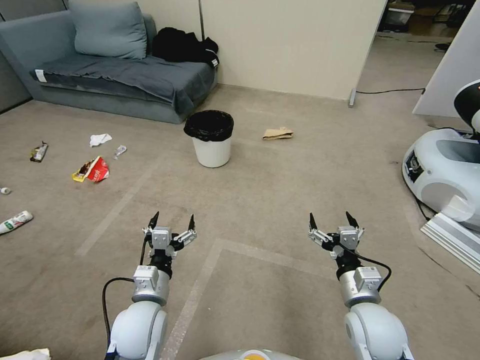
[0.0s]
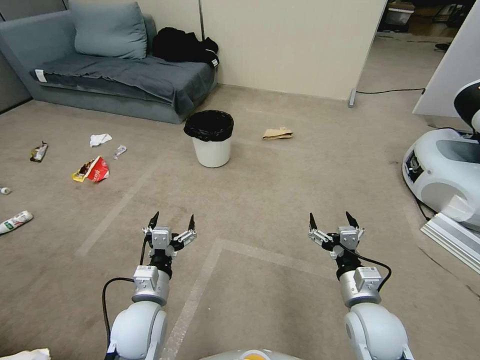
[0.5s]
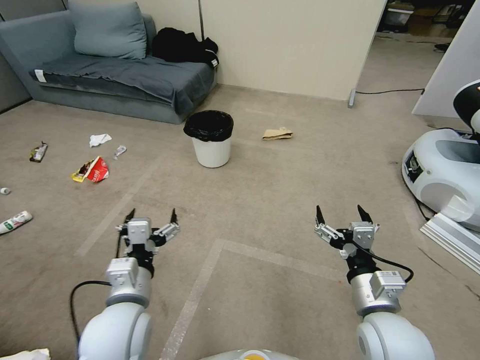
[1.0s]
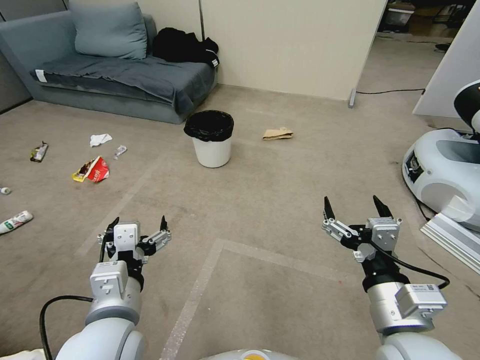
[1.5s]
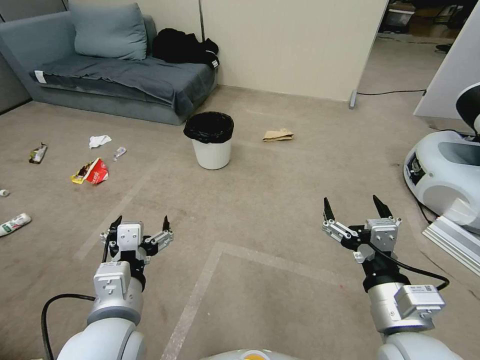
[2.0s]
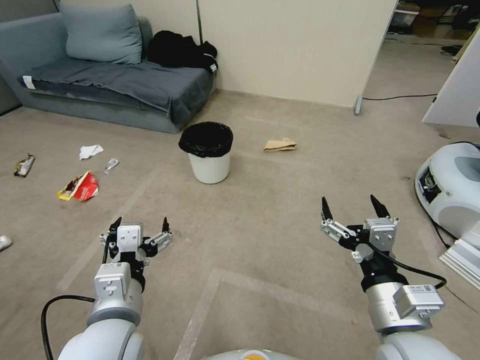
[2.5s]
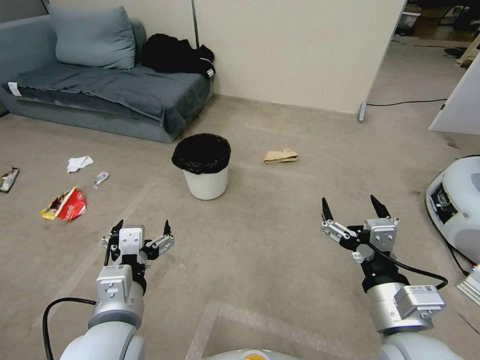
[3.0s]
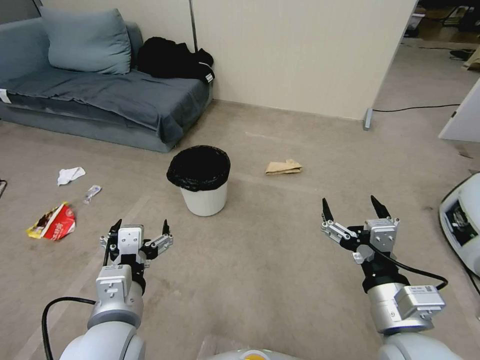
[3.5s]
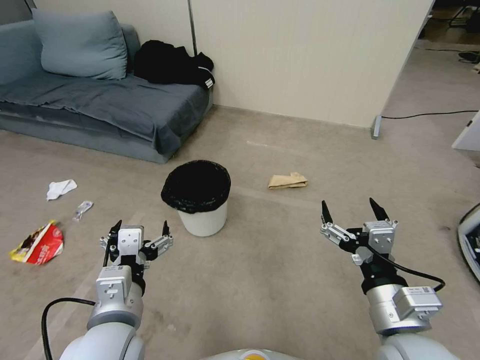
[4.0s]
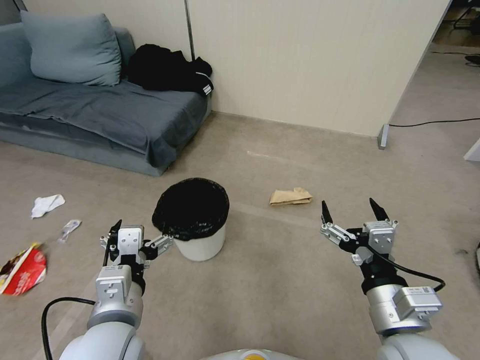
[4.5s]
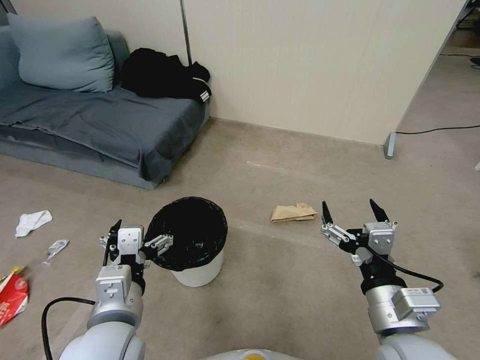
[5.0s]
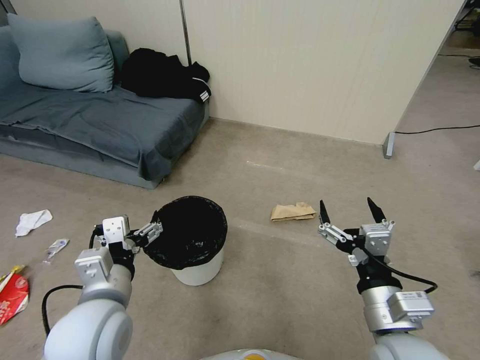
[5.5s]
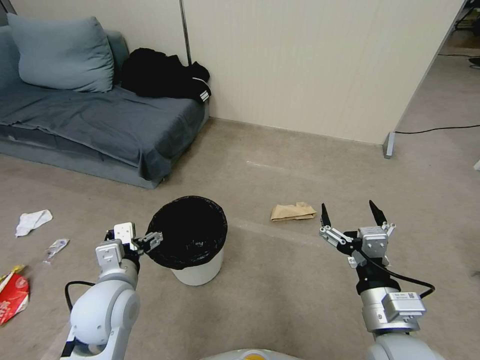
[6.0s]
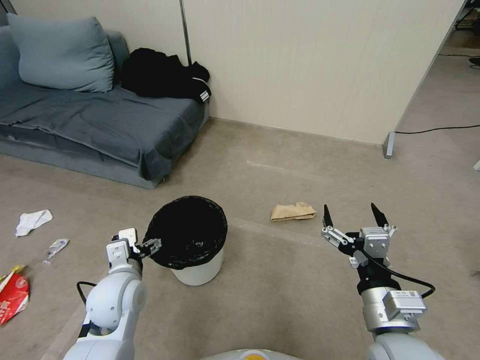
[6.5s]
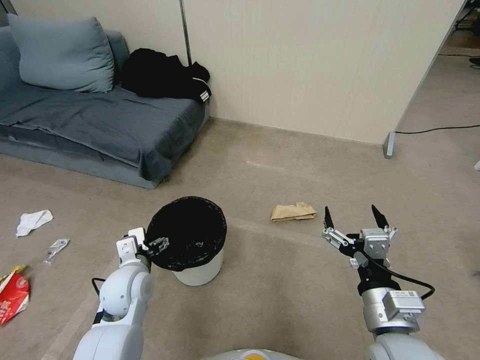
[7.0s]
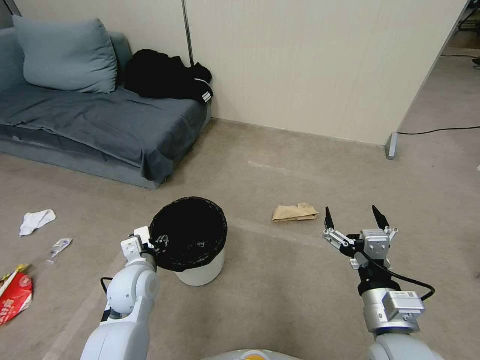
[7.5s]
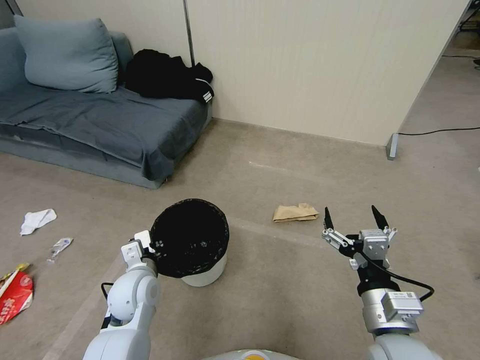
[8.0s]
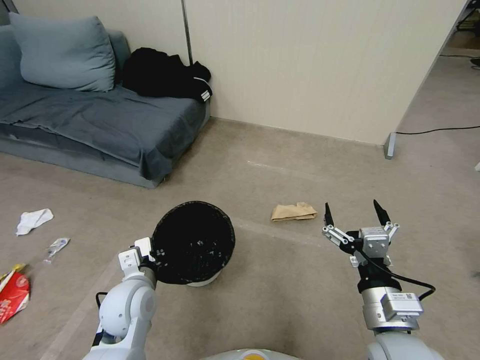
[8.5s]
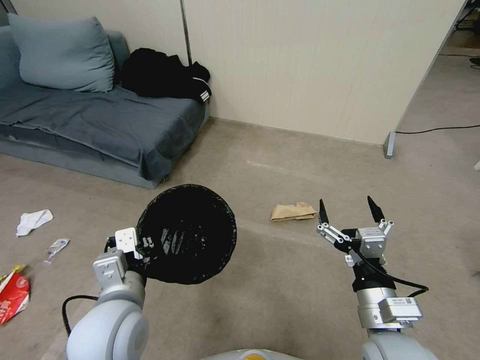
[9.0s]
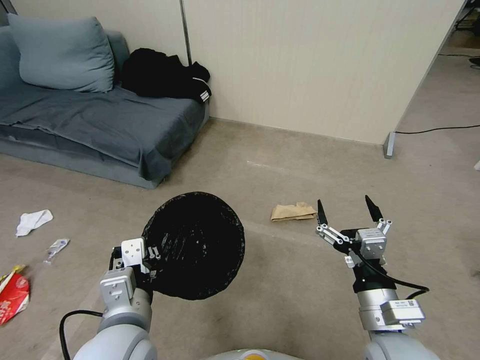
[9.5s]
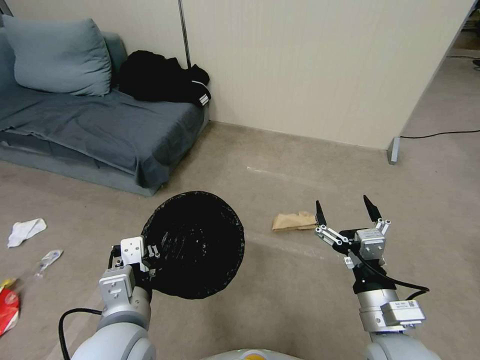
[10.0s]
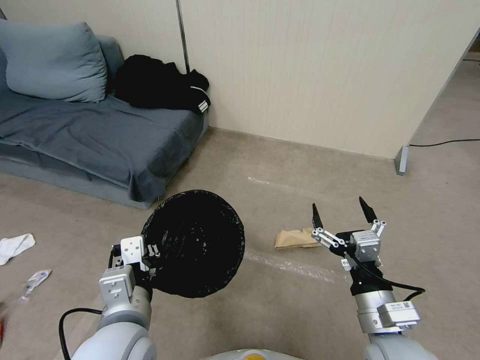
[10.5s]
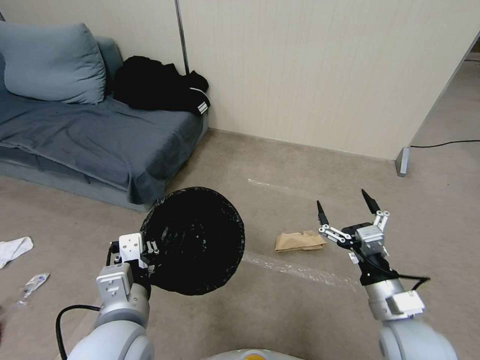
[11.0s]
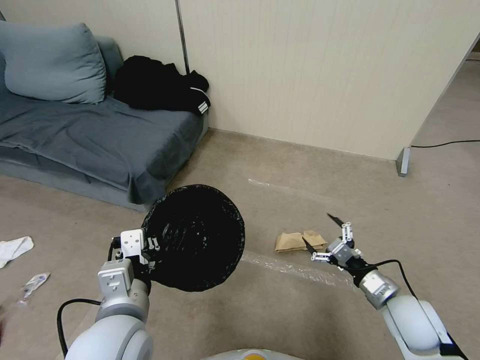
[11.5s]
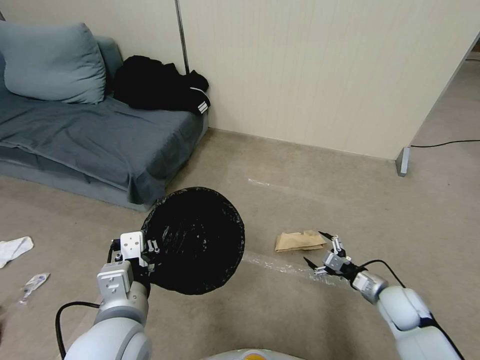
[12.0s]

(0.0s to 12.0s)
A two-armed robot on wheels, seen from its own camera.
Task of the whole recording: Pick up the trash bin, then pick up the garbage from the floor and place it into the trash bin.
4.0s - 6.0s: The left gripper shifts some 5 cm forward.
6.0s - 8.0s: The left gripper goes about 10 cm downward and forward, and closes up.
8.0s - 10.0s: The left gripper moves upward, backward and to the right, about 20 cm.
10.0s - 12.0s: The right gripper travels downward, to the right and forward by approximately 30 cm.

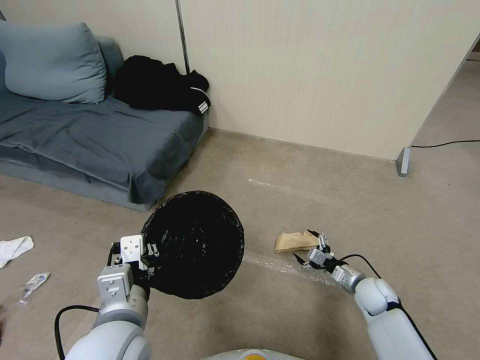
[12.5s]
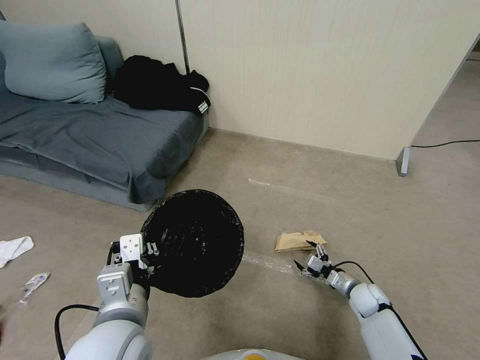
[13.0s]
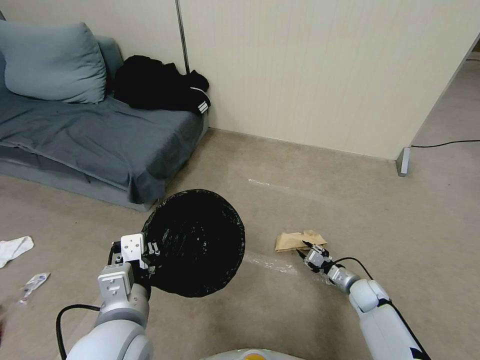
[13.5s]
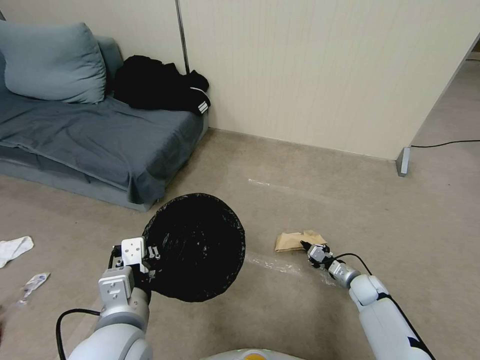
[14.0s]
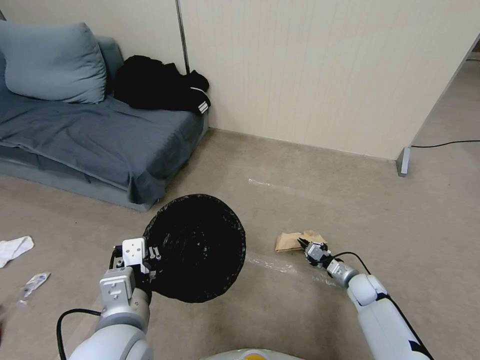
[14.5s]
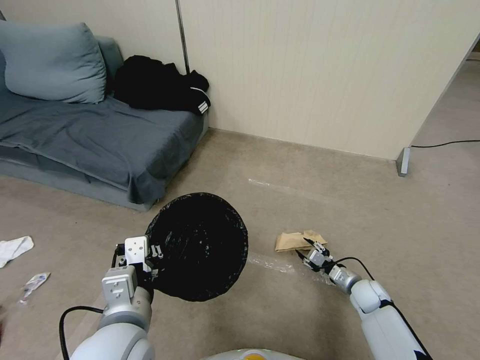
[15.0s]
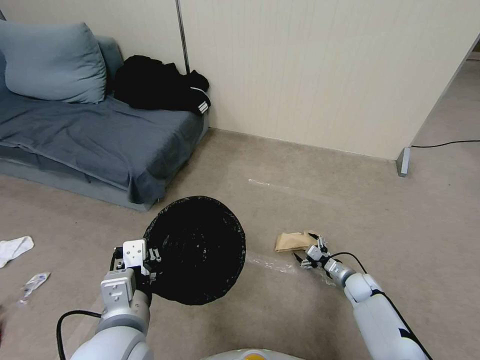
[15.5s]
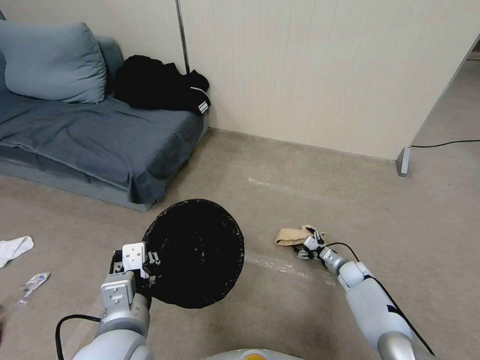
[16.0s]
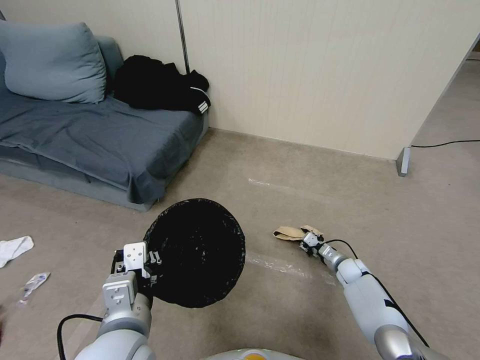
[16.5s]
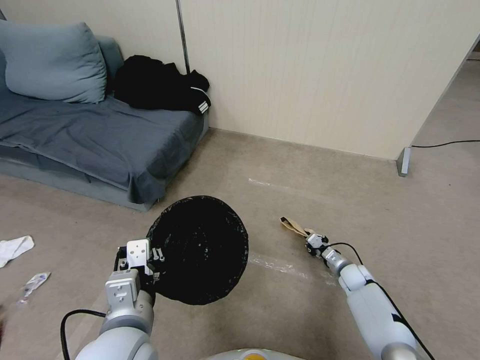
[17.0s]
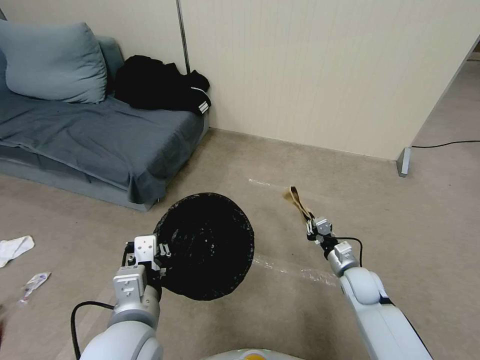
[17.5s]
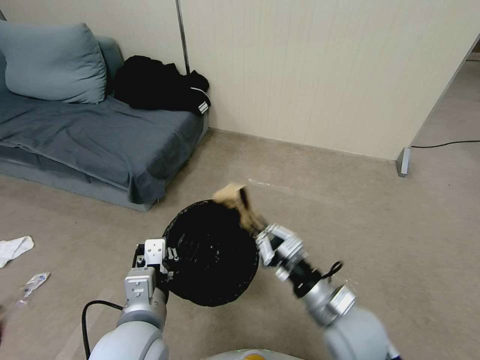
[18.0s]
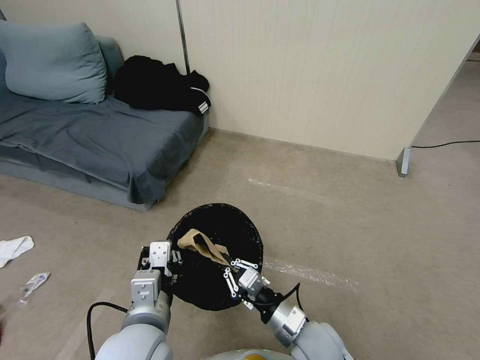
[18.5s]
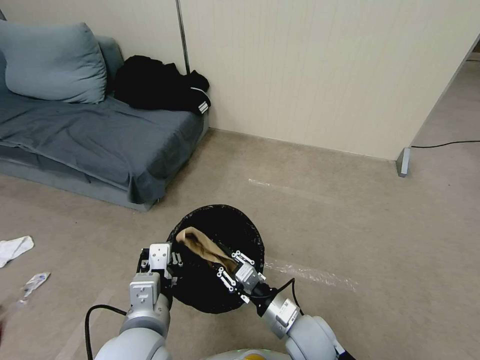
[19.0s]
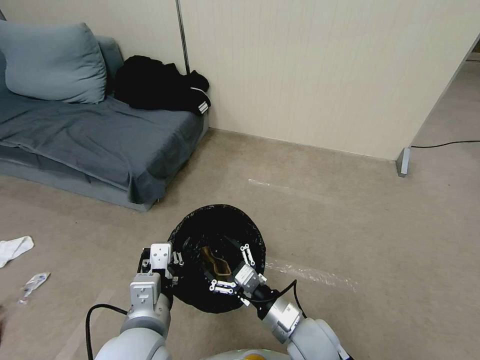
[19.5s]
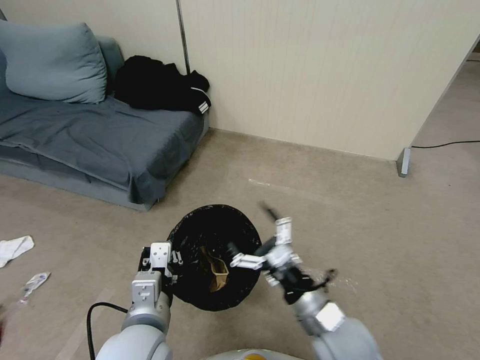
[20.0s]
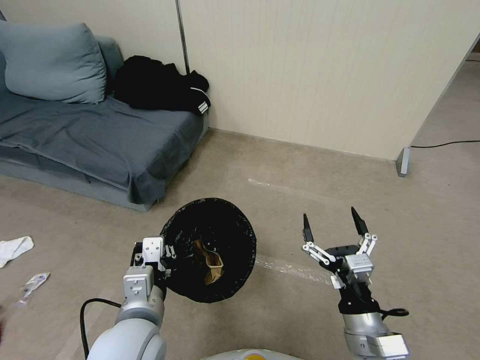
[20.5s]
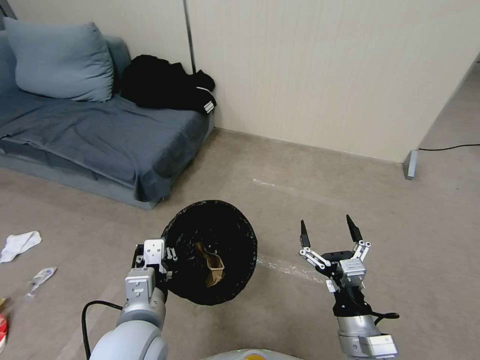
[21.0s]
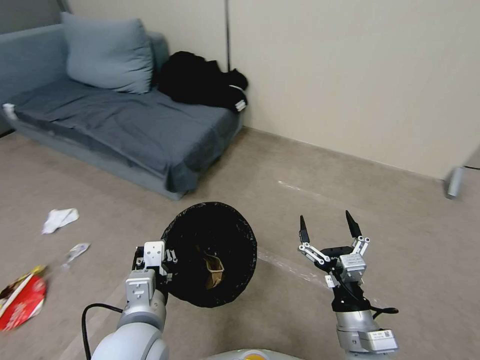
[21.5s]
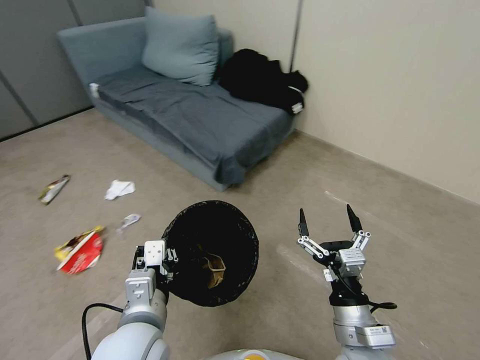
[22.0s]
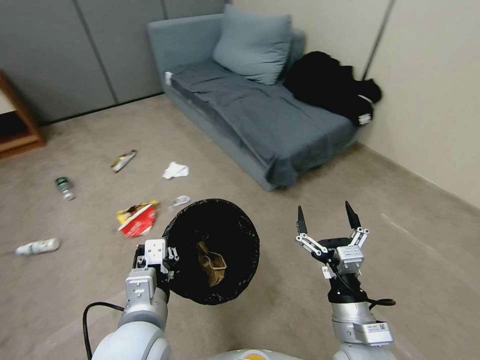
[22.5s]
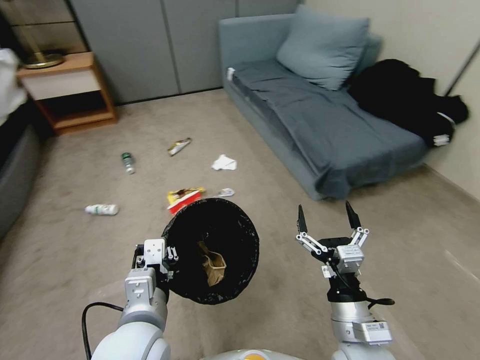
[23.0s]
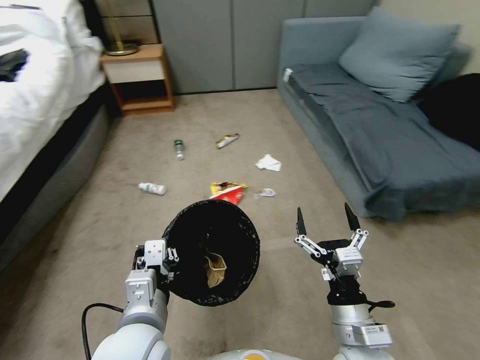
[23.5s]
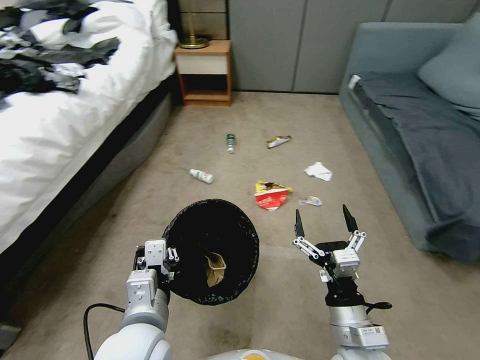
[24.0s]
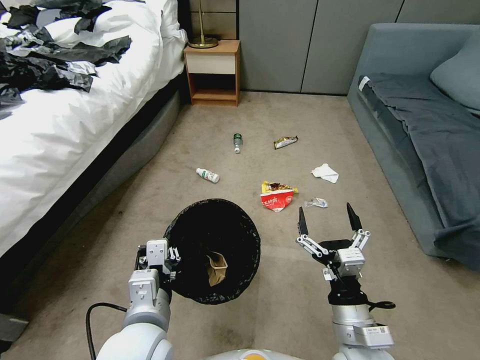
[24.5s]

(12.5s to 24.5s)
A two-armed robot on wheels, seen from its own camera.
Task of the whole recording: Pick up the trash bin, then pick up the garbage from the floor and place it into the trash bin.
12.5s - 14.5s: The right gripper closes its fingers.
14.5s - 16.5s: The right gripper travels forward by about 5 cm, and opens its fingers.
16.5s - 18.5s: The right gripper shifts some 35 cm backward, to the left and upward, and closes.
18.5s - 20.5s: The right gripper heads to the right, upward and backward, covering approximately 10 cm, and opens its fingers.

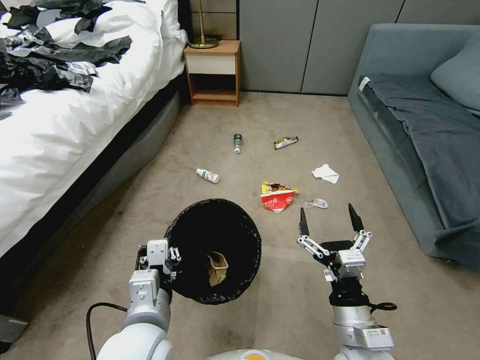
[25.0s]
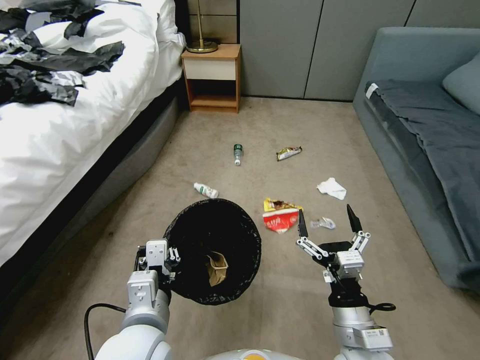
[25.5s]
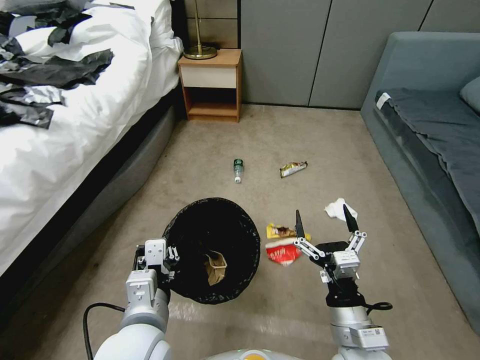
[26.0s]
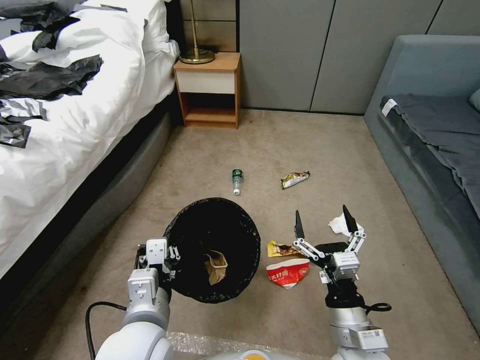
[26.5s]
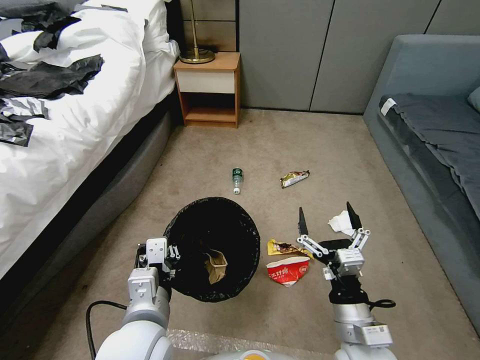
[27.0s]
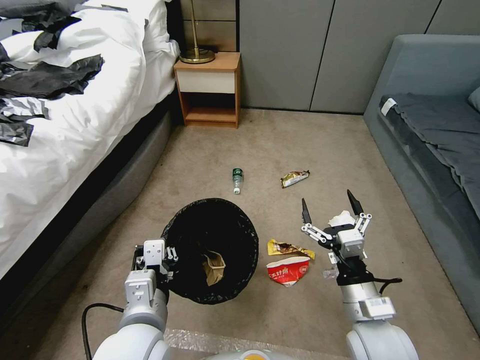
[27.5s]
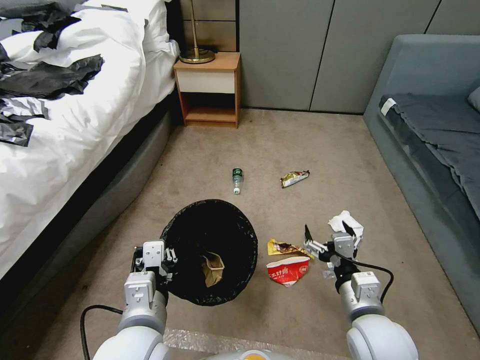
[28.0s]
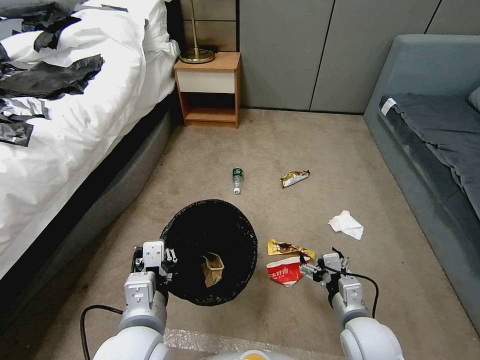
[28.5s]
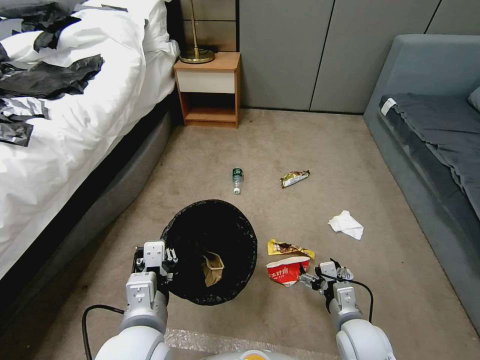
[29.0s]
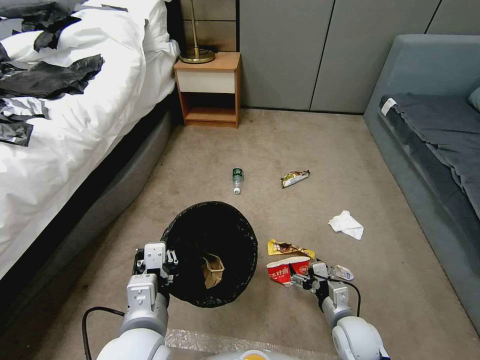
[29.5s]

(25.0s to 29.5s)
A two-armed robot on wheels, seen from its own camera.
Task of the whole recording: Pick up the trash bin, then pick up the garbage from the floor and place it into the trash bin.
27.0s - 29.5s: The right gripper goes about 15 cm downward and forward.
